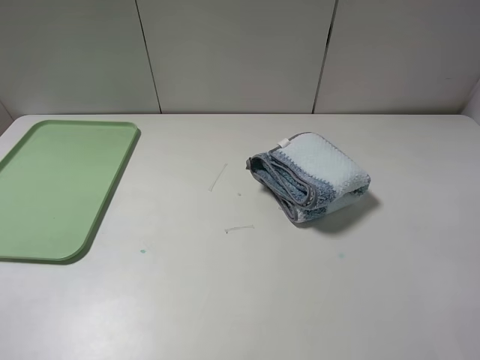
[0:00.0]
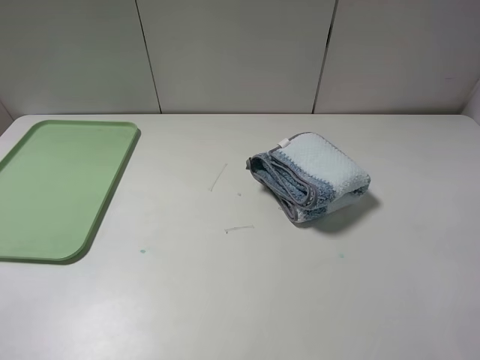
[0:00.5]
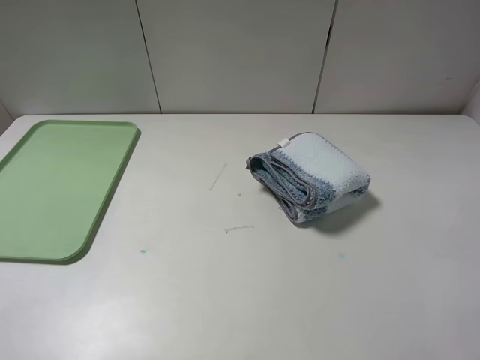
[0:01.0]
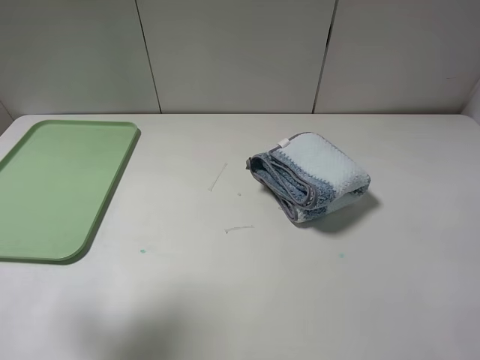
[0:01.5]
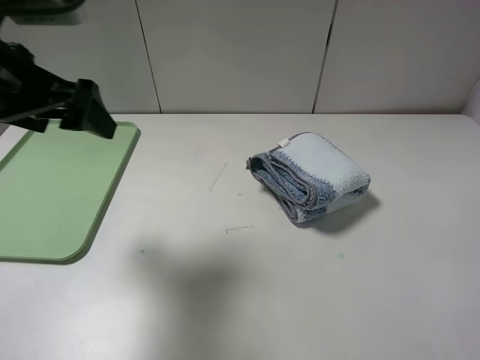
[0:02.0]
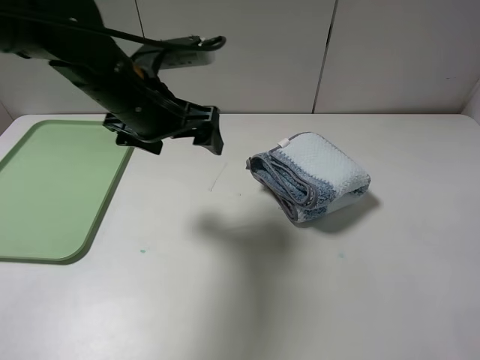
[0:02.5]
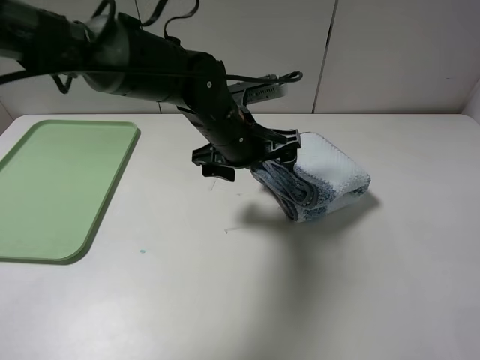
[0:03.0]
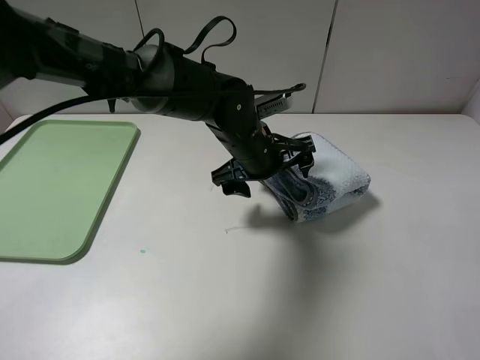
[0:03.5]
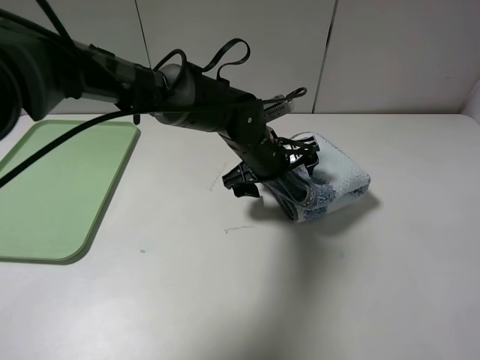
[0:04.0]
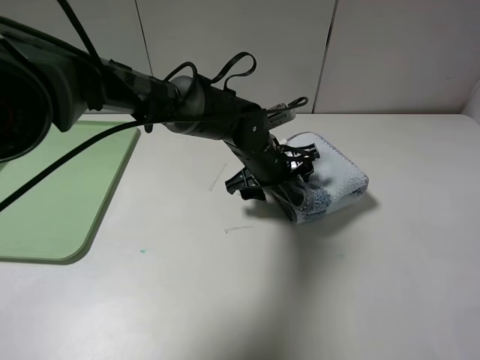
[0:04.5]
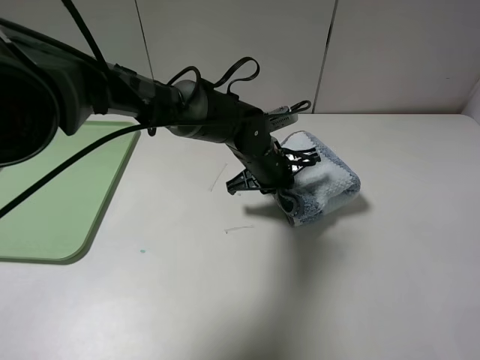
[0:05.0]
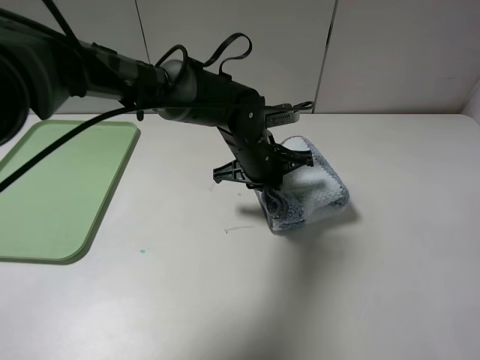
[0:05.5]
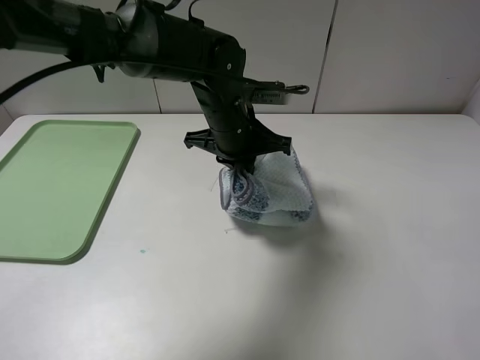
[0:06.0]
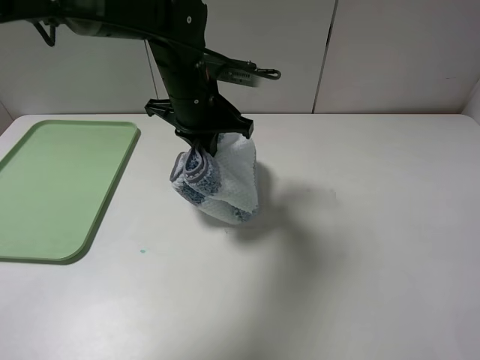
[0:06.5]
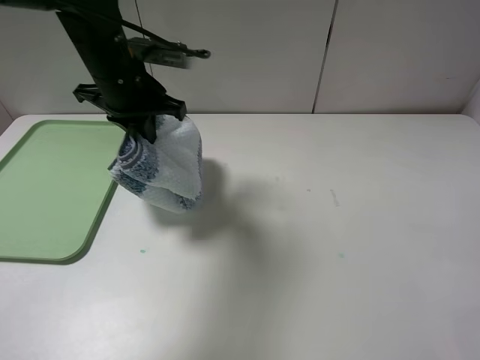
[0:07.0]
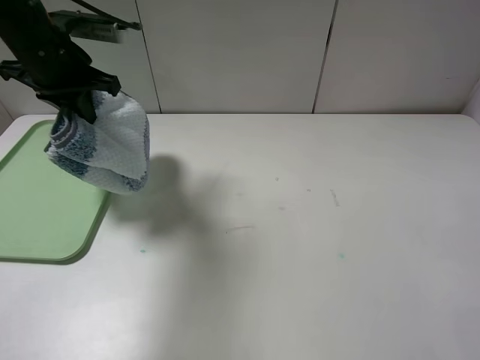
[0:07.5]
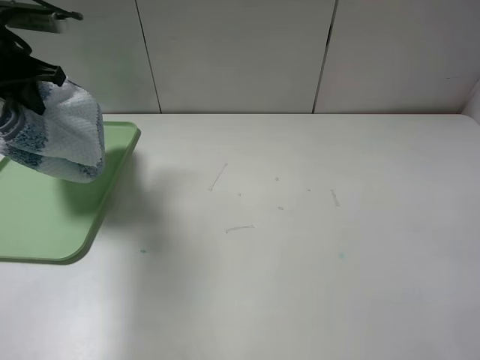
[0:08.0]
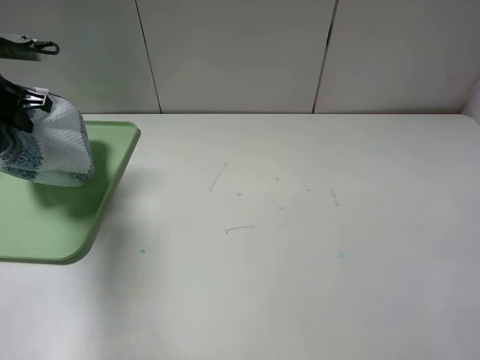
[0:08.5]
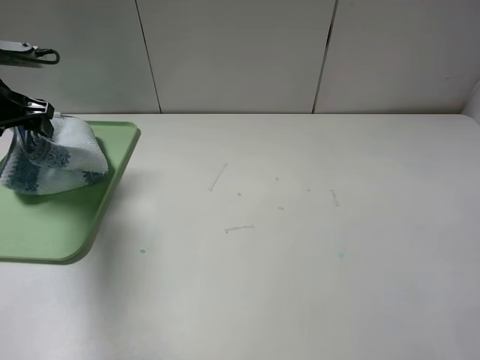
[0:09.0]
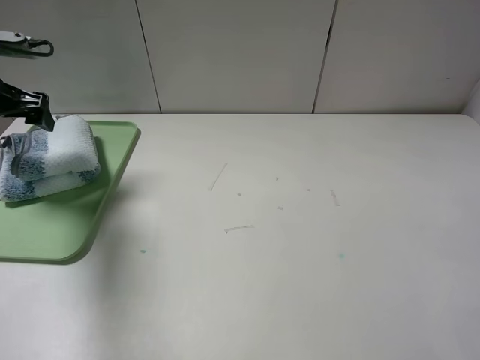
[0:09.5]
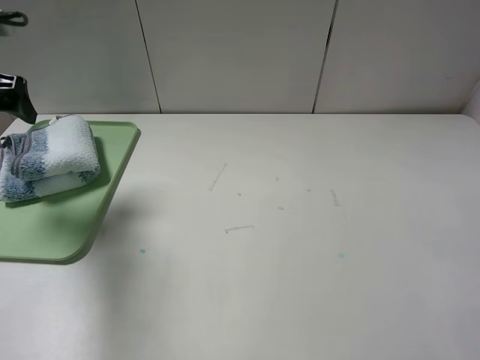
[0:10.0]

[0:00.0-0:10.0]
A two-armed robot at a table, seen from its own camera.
Step, 0:00.0 to 0:05.0: Grasp the blue white towel with the left gripper.
0:00.0 to 0:02.0: The left gripper moves forward, approximately 25 cm.
0:02.0 to 0:04.0: The left gripper goes some 30 cm to the right and downward.
0:04.0 to 0:06.0: The left gripper is displaced upward by approximately 5 cm, and closes its fingers.
0:06.0 to 0:08.0: The left gripper shifts some 30 cm to the left.
0:08.0 to 0:10.0: The left gripper is displaced backward by about 5 cm, and opens its fingers.

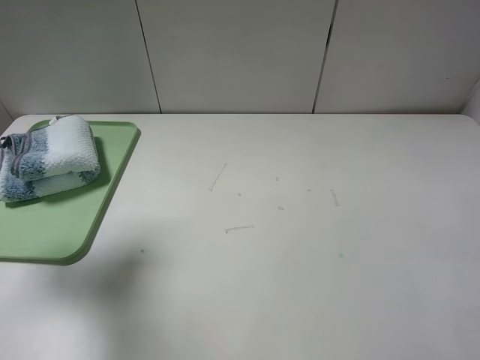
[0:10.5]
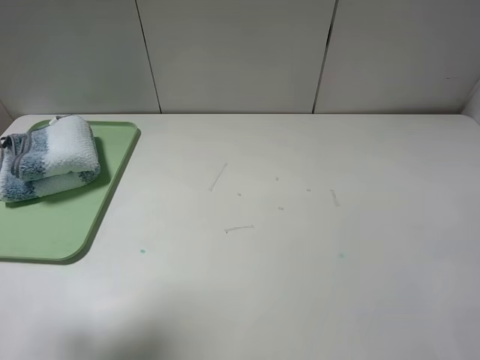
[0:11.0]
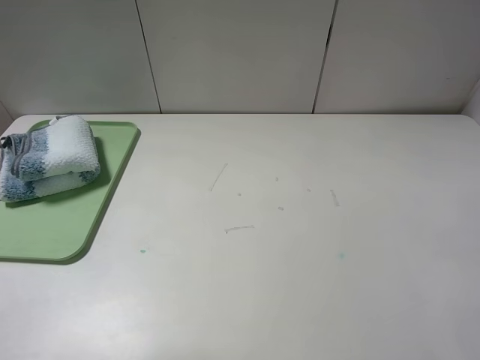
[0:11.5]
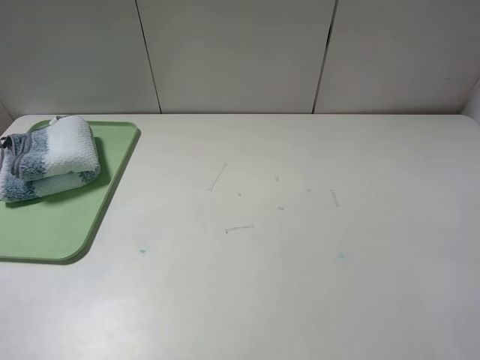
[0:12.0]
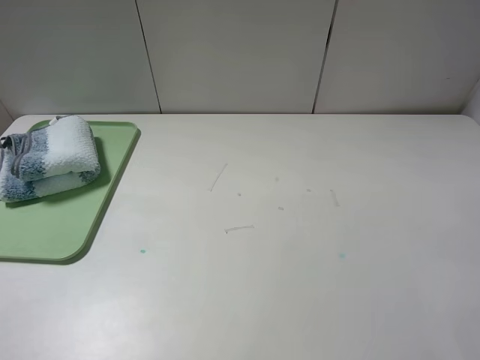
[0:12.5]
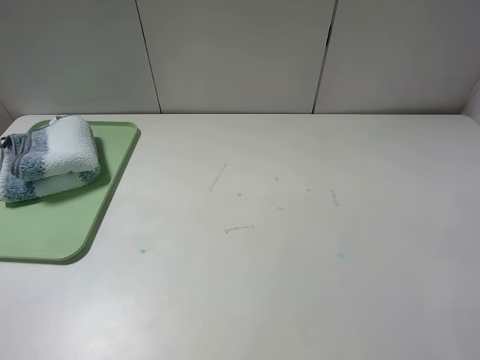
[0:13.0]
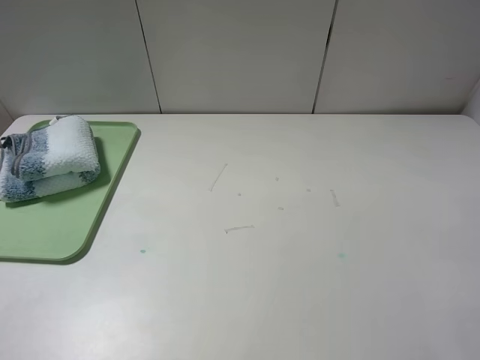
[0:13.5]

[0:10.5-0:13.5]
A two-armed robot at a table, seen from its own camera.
0:10.5 to 0:12.0: The left gripper travels backward by about 25 cm.
